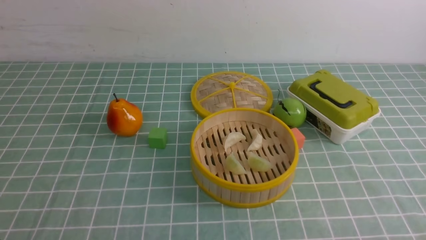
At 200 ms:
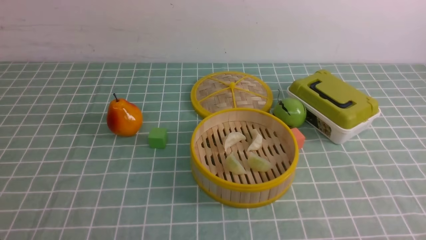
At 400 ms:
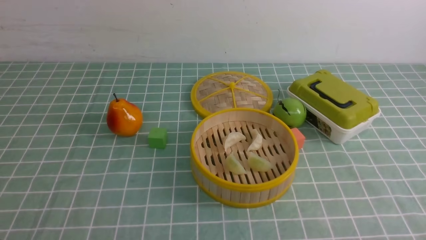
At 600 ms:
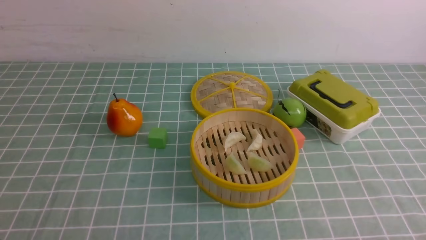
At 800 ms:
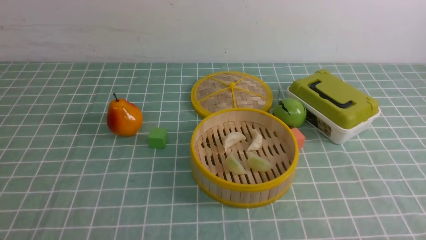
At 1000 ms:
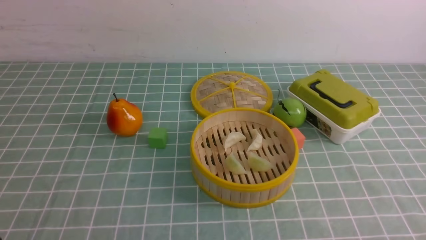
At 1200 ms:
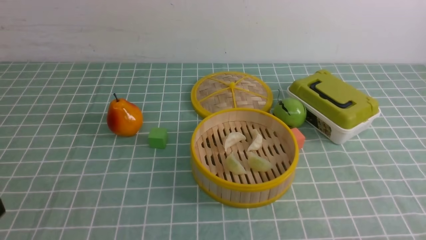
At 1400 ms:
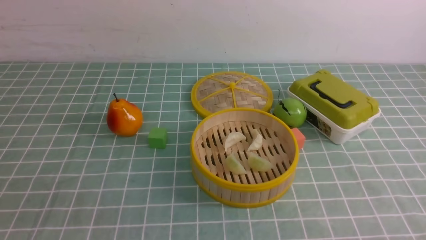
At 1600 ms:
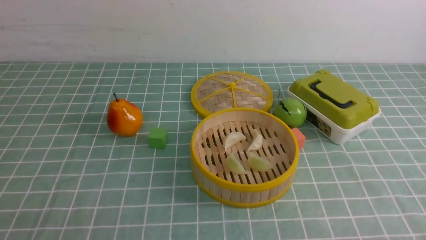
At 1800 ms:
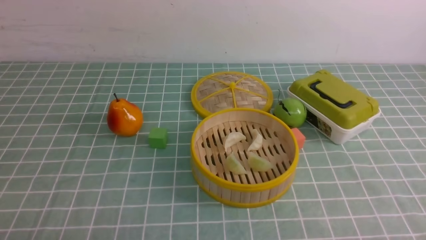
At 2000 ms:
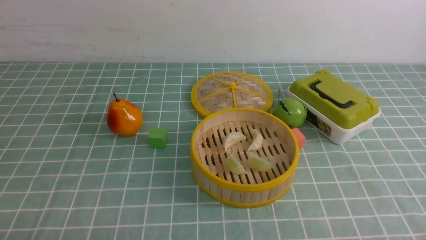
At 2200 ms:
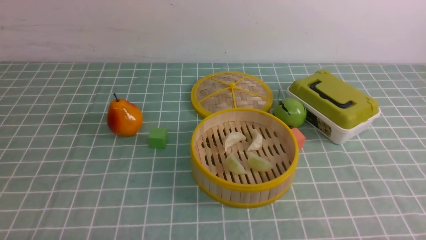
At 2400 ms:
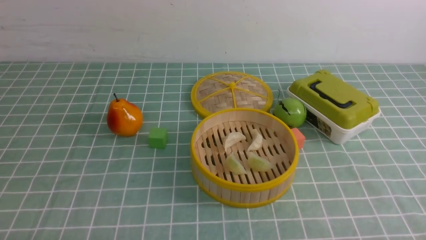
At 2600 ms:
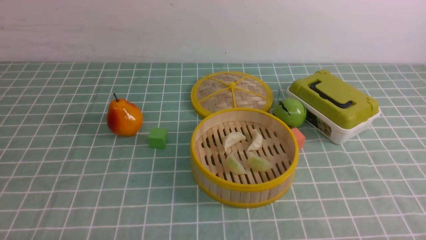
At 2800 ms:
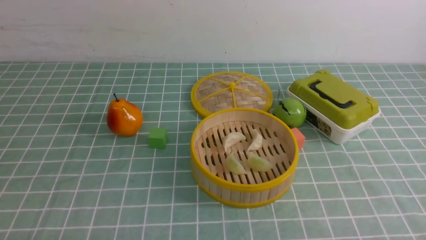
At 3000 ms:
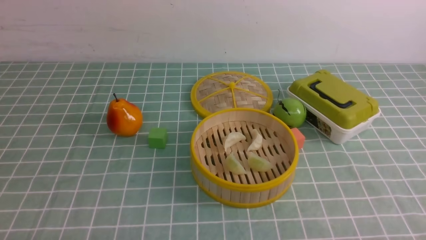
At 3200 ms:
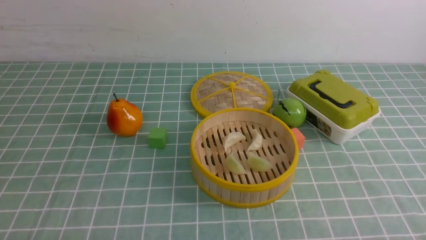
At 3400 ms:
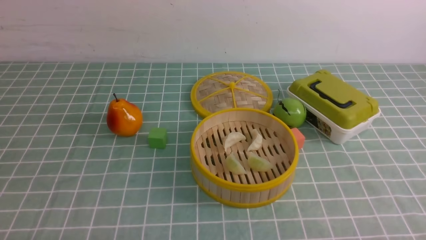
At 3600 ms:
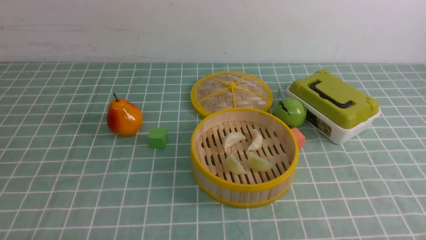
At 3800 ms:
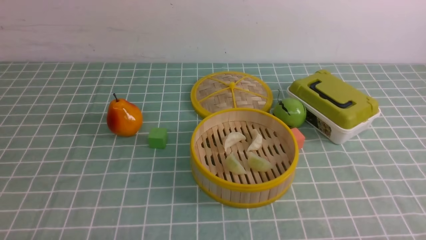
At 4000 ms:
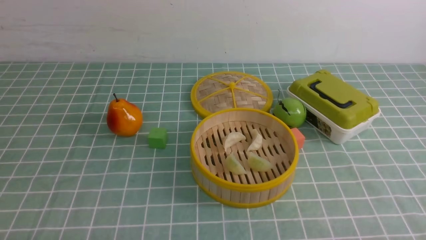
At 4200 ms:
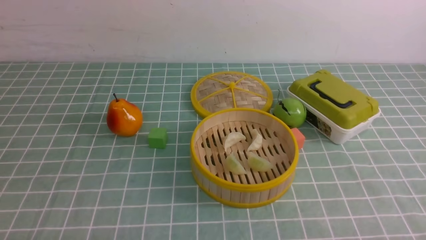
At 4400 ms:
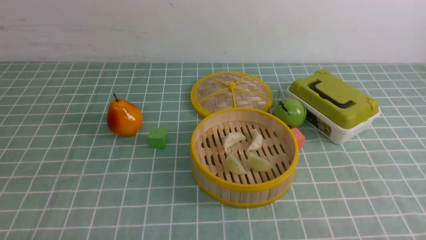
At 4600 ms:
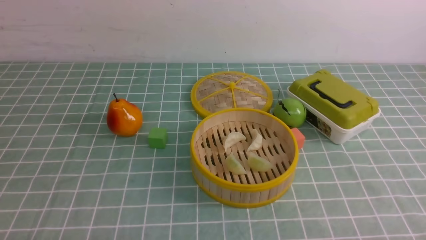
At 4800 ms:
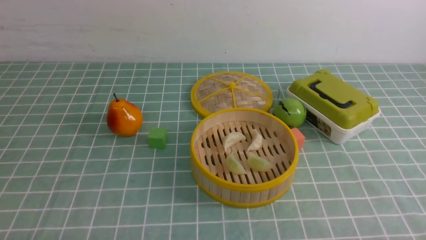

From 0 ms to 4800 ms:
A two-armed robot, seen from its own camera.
Task of the whole recording: put the dumplings into the steamer on the table with the blue tablecloth.
From 3200 ms to 4800 ms: Both grippers stay about where they are.
